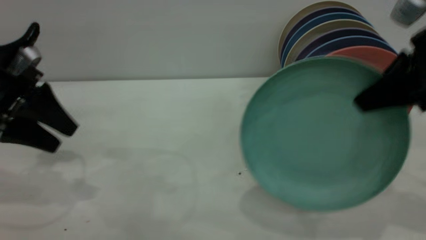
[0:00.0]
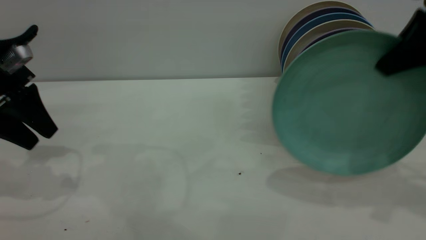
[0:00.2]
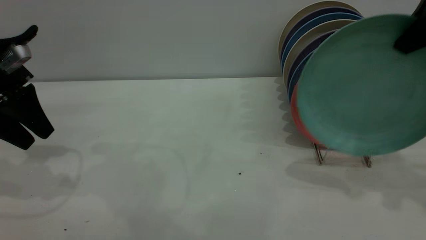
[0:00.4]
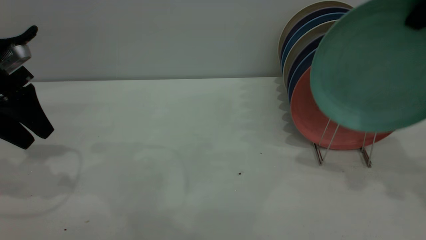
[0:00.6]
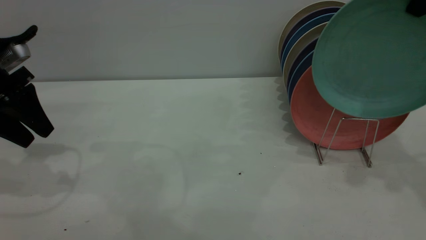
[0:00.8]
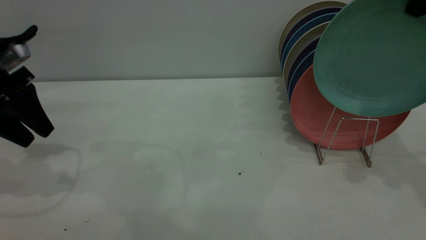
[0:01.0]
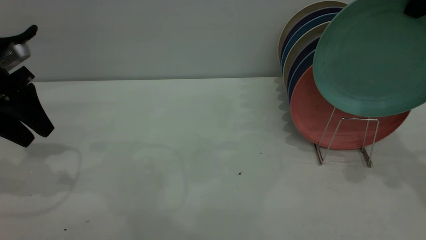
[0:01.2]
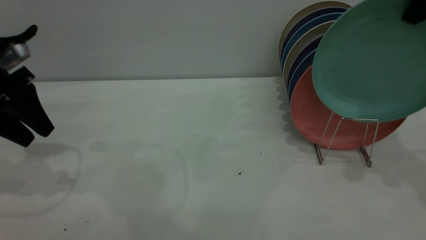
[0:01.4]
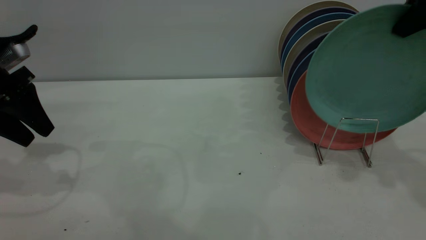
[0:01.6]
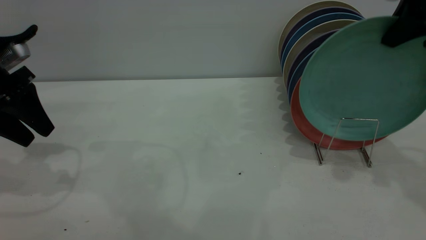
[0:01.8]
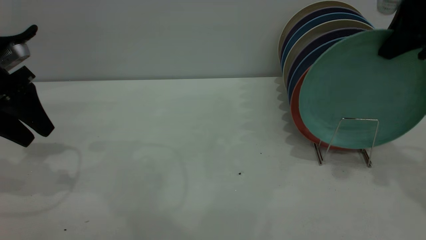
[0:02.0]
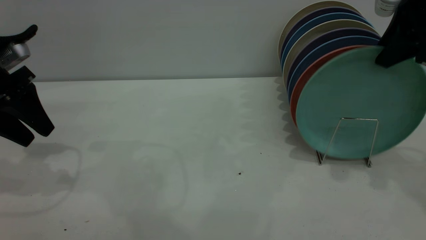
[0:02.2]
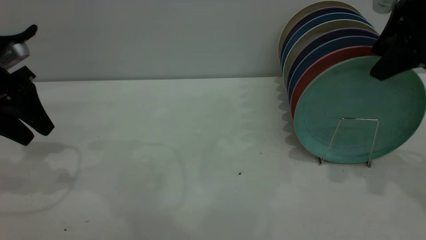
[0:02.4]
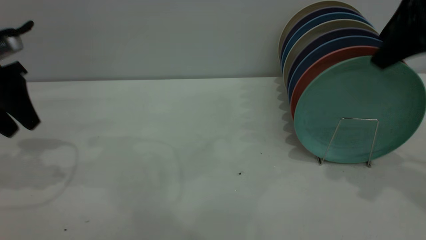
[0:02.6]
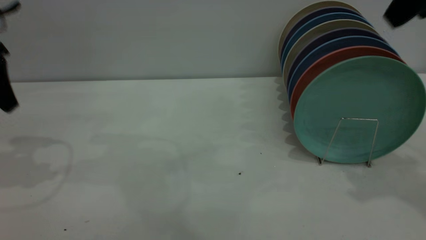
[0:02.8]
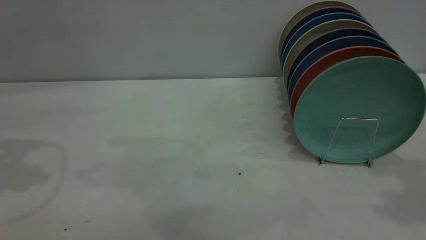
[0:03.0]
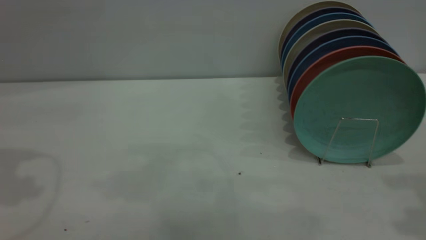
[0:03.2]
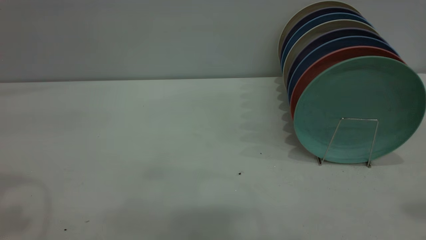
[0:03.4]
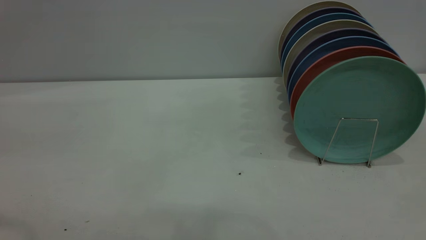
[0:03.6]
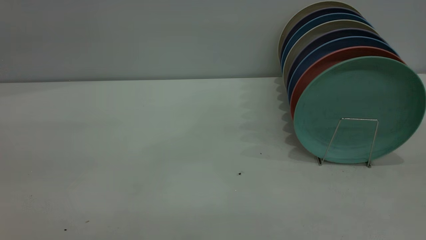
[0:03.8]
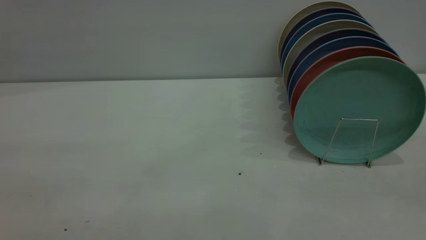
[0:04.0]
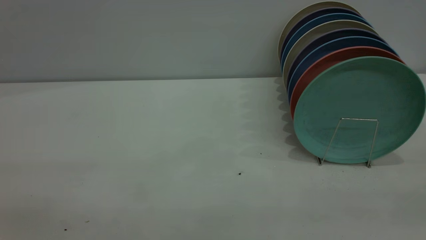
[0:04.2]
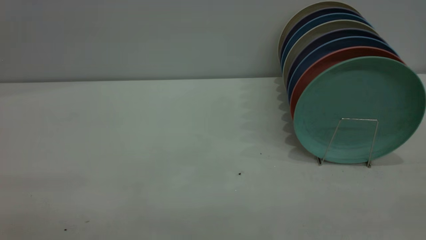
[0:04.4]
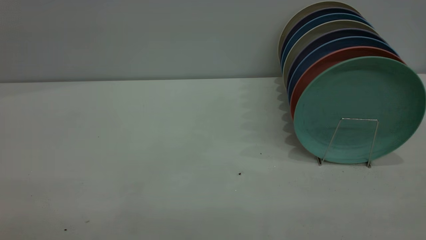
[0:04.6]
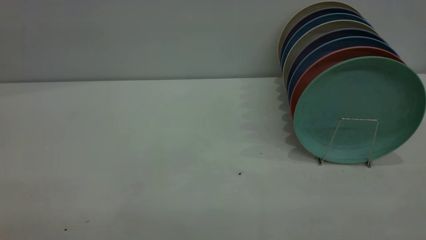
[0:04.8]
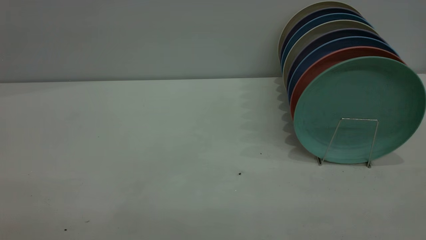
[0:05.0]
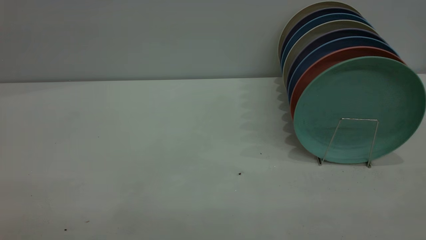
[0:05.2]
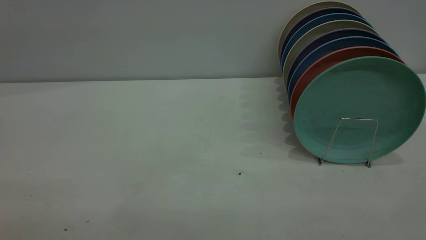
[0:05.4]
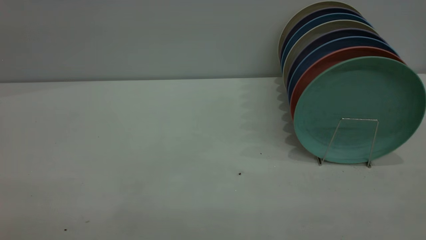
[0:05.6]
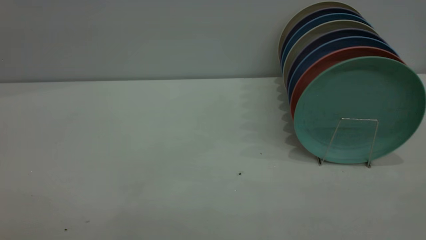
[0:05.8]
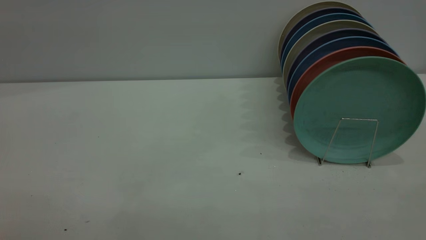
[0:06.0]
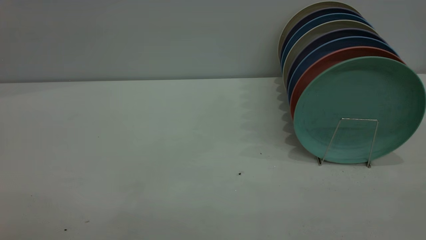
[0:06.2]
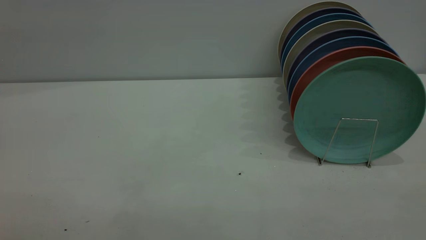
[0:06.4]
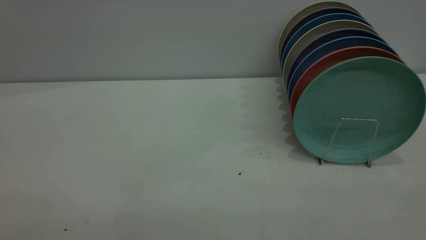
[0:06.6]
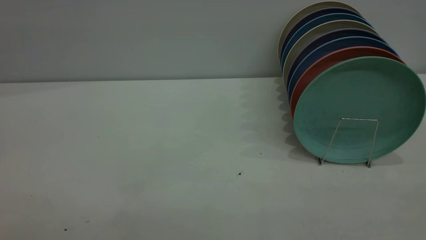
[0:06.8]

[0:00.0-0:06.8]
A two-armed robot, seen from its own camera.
Task of the whole recording: the left gripper grasp the green plate, the left gripper pass the green plate to the right gripper, and the right gripper place the green plate on the plate rack.
Step, 0:00.0 to 0:02.6: Place the plate on the shelf.
0:00.0 to 0:01.4: The right gripper shifts approximately 10 cm upward and forward.
0:01.4 to 0:02.8: The right gripper moves roughly 5 cm, and opens its fingers, while the left gripper shifts about 5 cm upward.
0:02.8 to 0:04.0: Both grippers move backward, approximately 30 cm.
